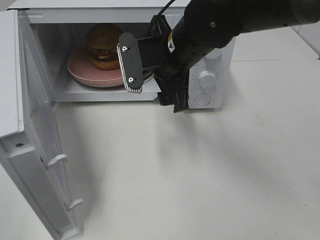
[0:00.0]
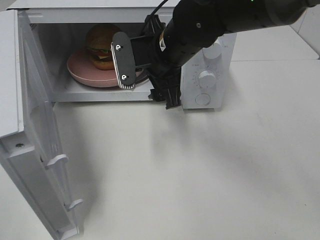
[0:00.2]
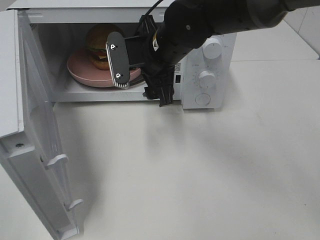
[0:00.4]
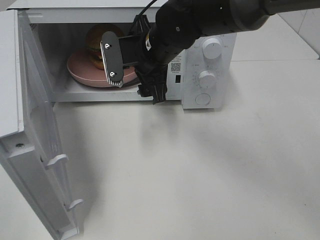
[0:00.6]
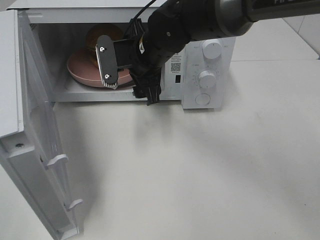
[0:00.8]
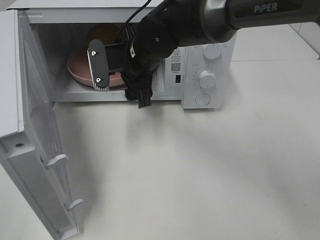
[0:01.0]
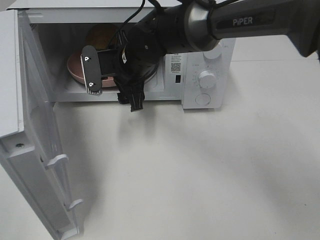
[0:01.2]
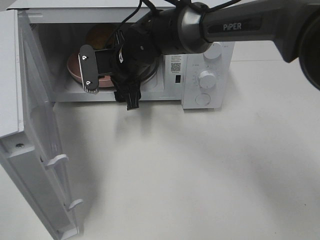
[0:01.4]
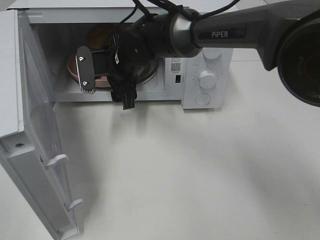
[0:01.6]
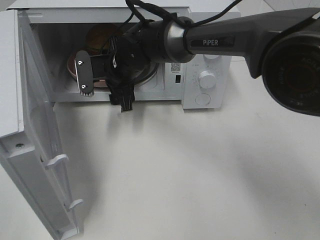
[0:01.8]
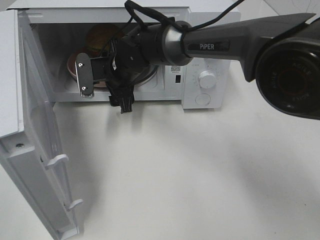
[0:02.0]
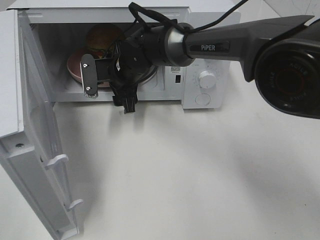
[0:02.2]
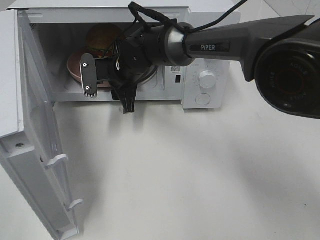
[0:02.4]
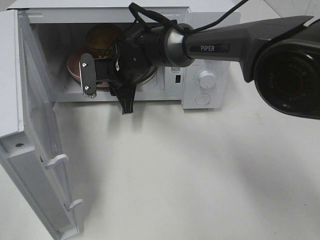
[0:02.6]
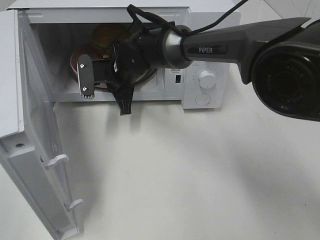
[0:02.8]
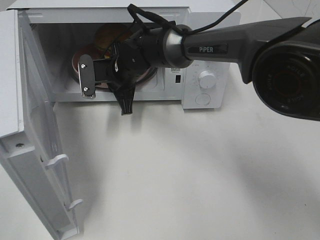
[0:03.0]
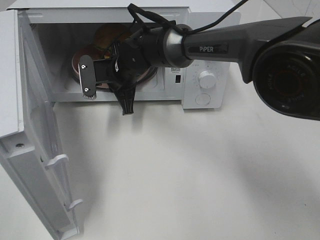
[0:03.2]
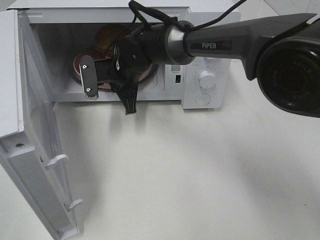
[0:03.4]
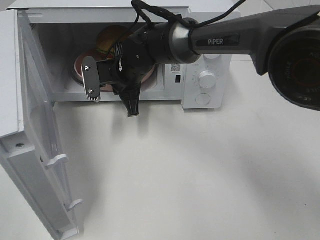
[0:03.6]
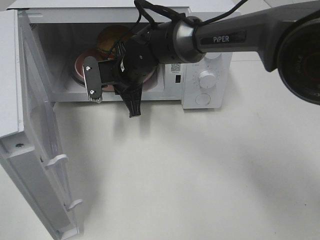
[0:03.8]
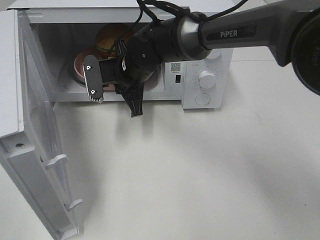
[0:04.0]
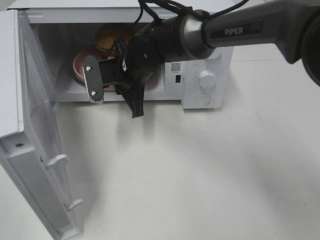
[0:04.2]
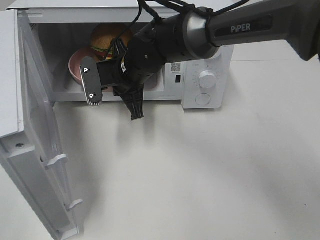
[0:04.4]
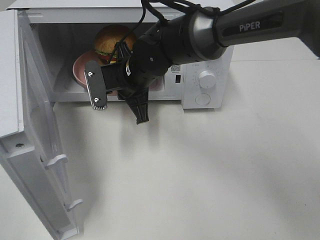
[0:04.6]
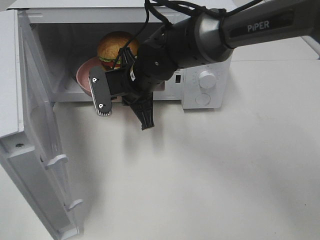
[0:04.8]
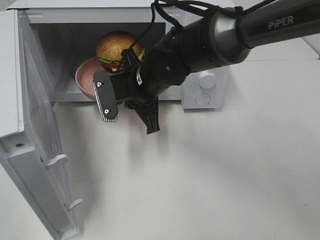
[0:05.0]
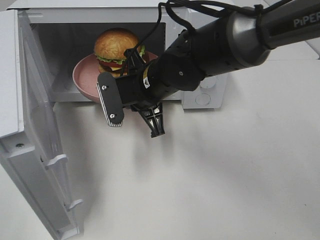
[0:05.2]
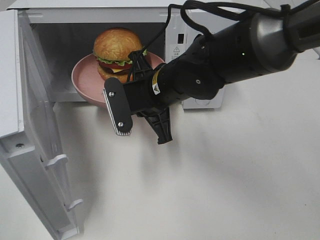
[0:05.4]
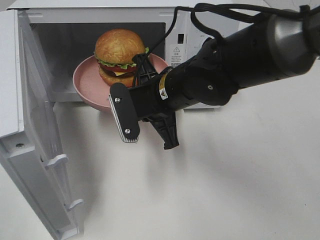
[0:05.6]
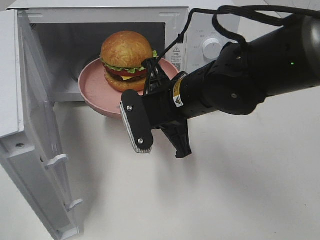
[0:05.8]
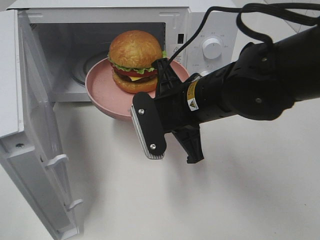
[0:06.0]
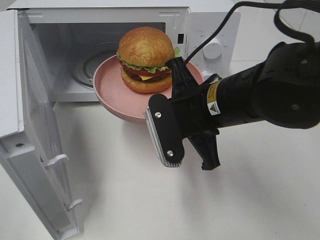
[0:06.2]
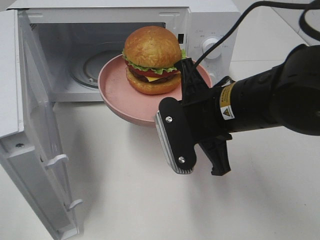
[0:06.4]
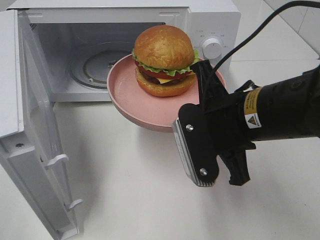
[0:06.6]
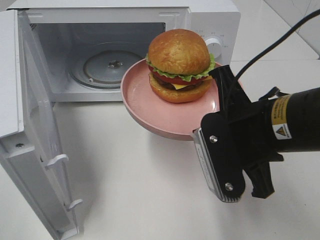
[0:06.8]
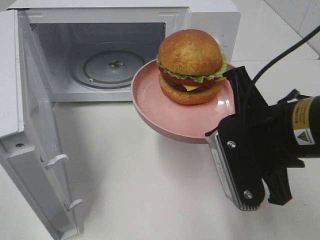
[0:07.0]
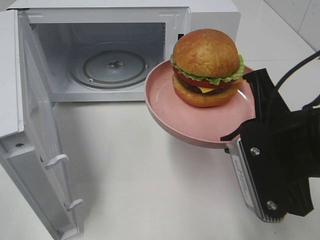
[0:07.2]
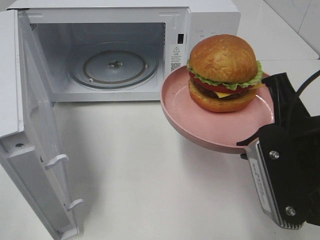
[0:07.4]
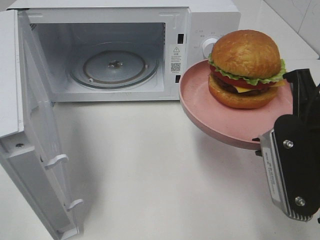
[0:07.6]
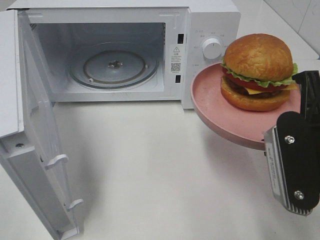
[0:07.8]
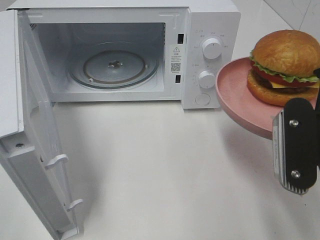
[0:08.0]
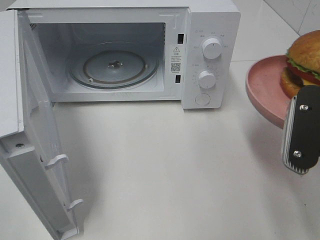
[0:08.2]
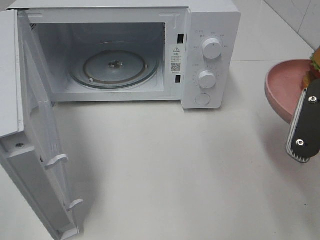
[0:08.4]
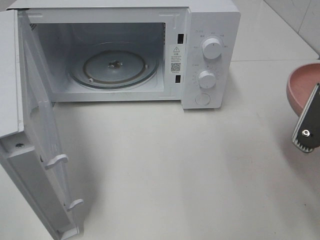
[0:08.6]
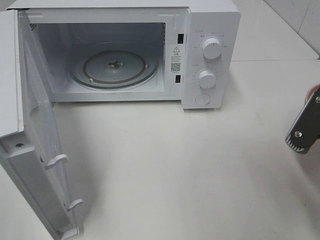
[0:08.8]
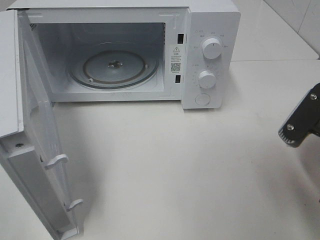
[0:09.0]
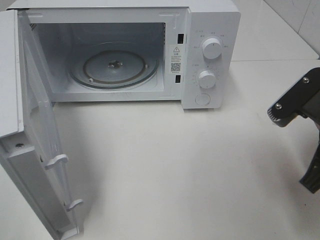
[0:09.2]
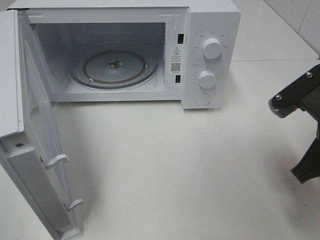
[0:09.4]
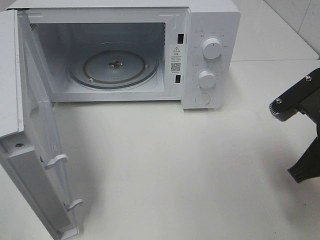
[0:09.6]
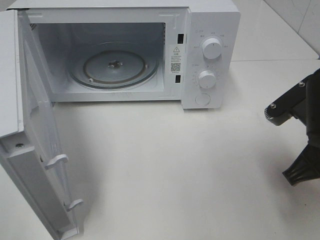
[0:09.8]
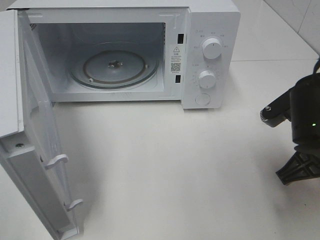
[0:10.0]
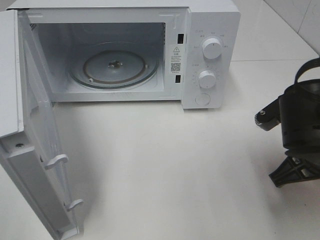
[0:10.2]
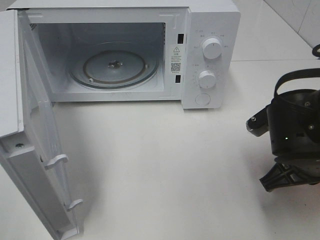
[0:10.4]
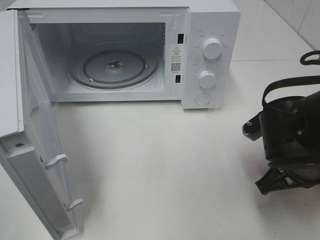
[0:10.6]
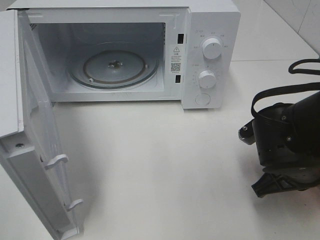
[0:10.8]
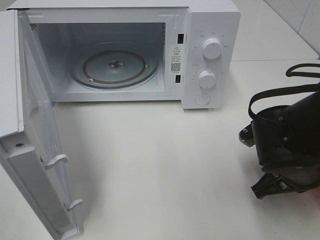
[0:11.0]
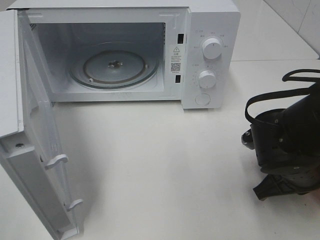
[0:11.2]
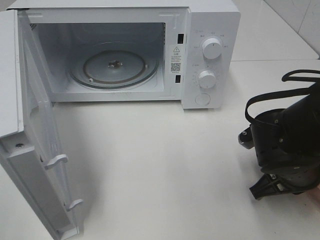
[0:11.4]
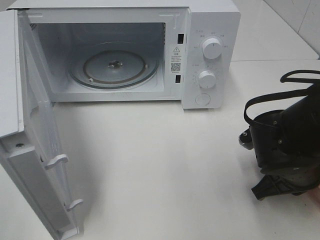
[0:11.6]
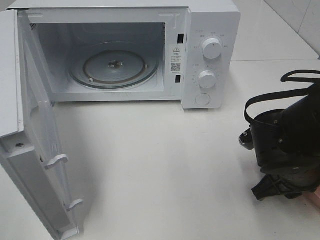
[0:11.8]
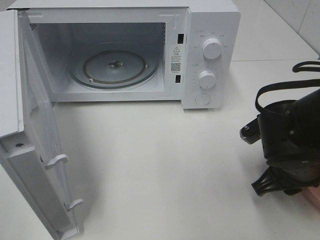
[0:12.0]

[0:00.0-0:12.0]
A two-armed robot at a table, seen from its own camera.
Task of the whole recording: Heat the burger.
Step, 0:00.0 to 0:02.6: Right hand: grab the plate with the hamburger.
0:00.0 to 0:01.6: The right gripper moves to the left, forward and downward, about 15 cm.
0:01.6 to 0:03.0: The right gripper closes up.
0:03.0 to 0:04.4: The right gripper moves some 5 cm.
0:04.4 to 0:06.0: The right gripper moves backward and to the right, some 15 cm.
0:06.0 to 0:07.6: The right gripper heads to the right, backward and upward, covering approximately 20 cm.
0:09.0 to 0:10.4: The right gripper goes some 5 cm downward.
0:10.4 to 0:12.0: The right gripper opens up.

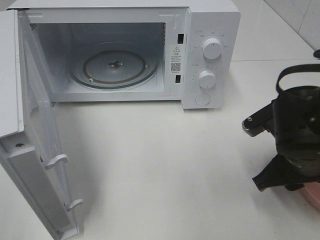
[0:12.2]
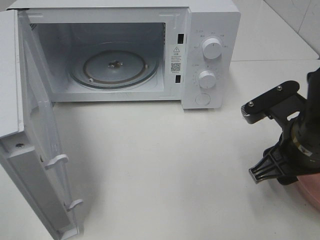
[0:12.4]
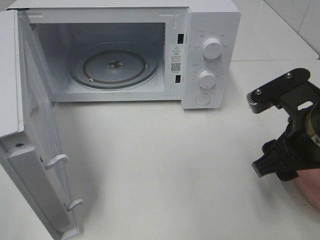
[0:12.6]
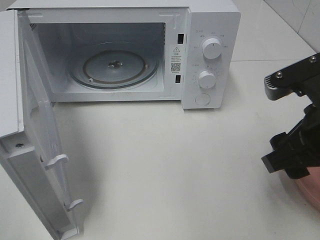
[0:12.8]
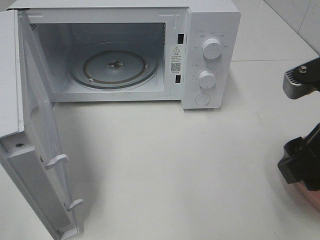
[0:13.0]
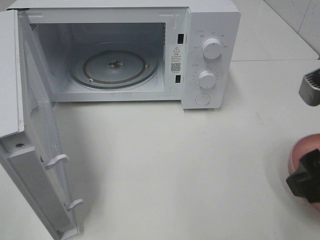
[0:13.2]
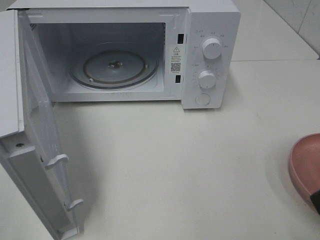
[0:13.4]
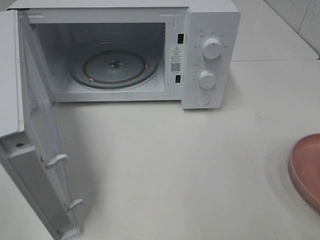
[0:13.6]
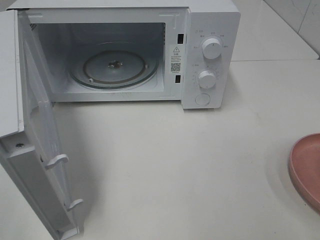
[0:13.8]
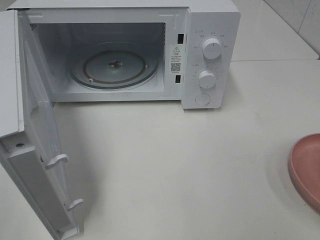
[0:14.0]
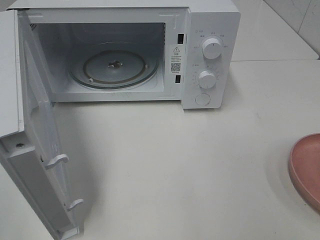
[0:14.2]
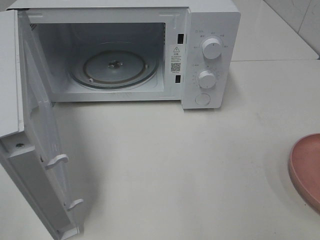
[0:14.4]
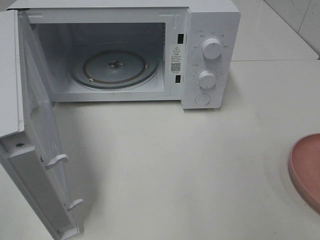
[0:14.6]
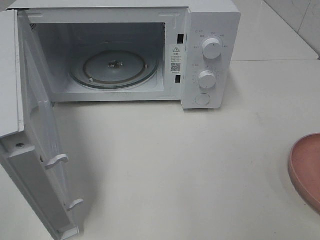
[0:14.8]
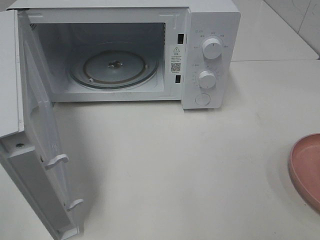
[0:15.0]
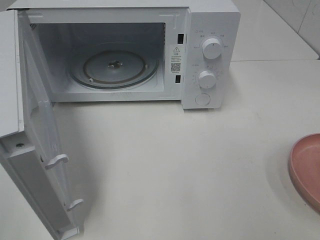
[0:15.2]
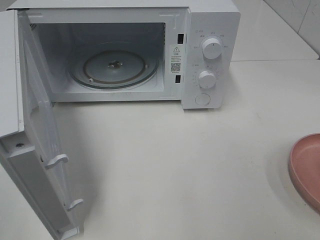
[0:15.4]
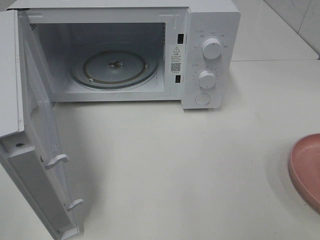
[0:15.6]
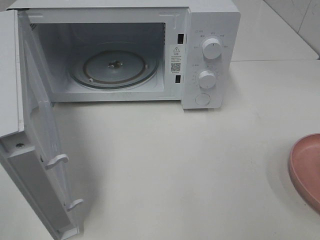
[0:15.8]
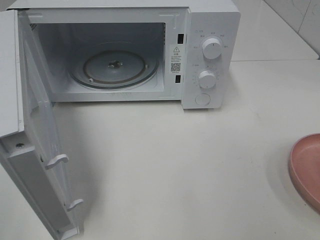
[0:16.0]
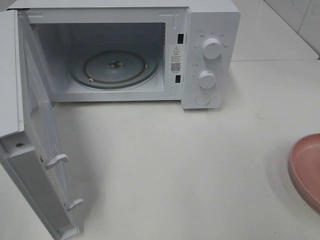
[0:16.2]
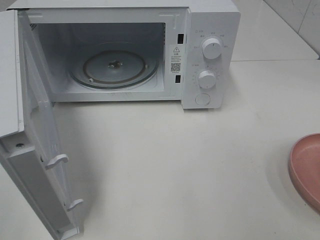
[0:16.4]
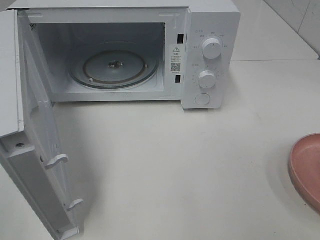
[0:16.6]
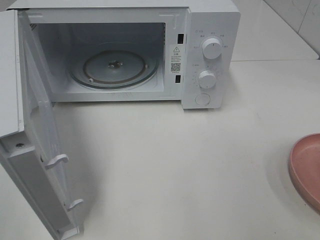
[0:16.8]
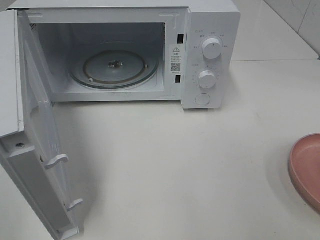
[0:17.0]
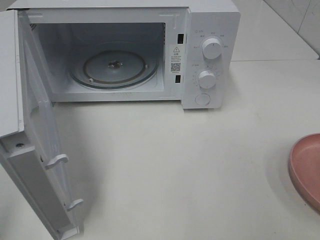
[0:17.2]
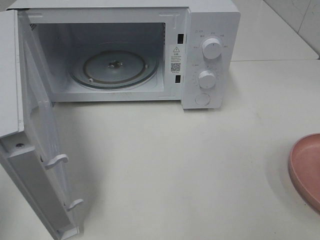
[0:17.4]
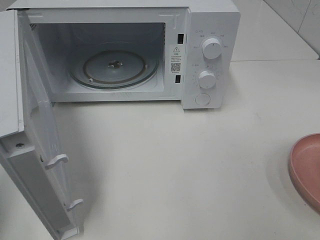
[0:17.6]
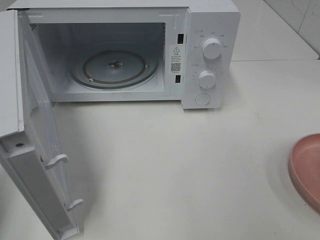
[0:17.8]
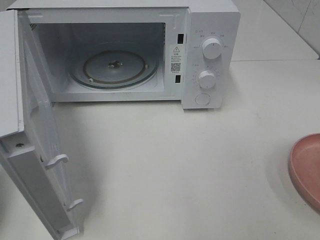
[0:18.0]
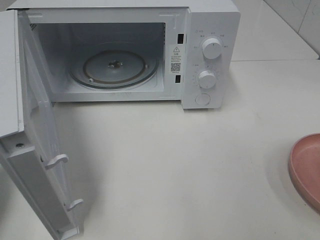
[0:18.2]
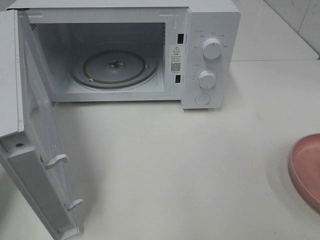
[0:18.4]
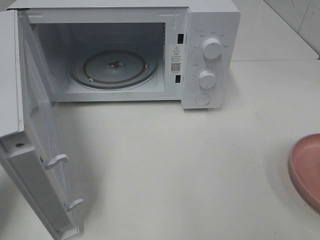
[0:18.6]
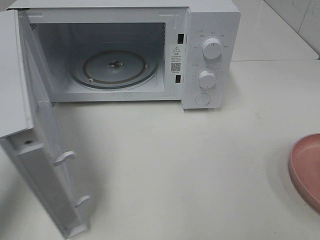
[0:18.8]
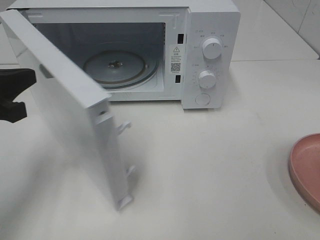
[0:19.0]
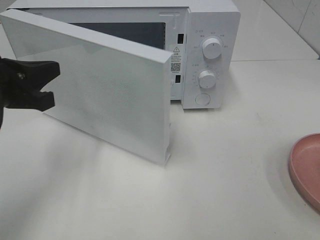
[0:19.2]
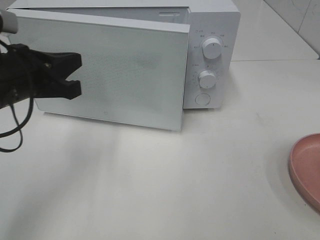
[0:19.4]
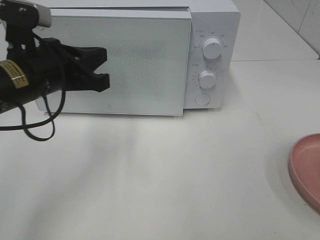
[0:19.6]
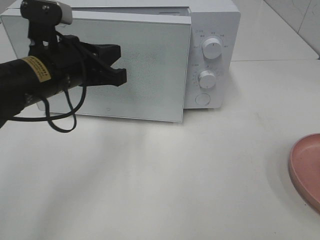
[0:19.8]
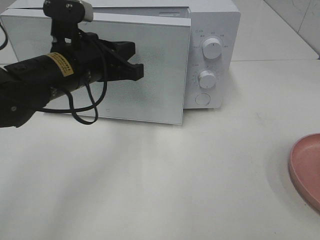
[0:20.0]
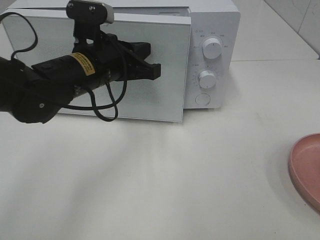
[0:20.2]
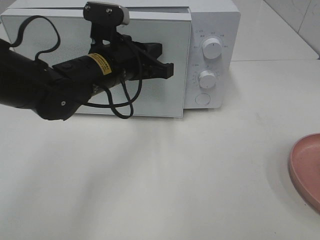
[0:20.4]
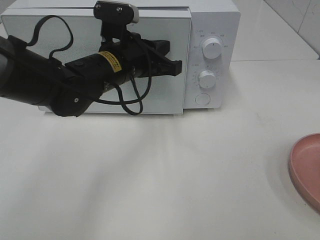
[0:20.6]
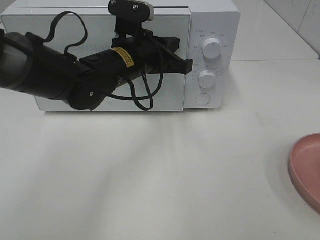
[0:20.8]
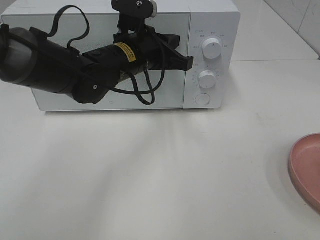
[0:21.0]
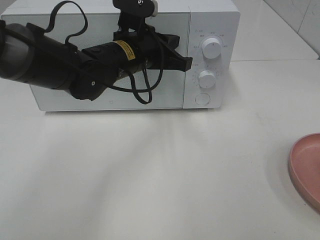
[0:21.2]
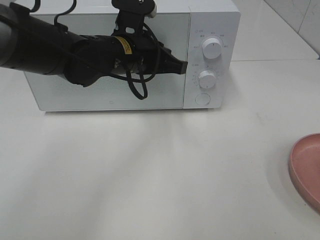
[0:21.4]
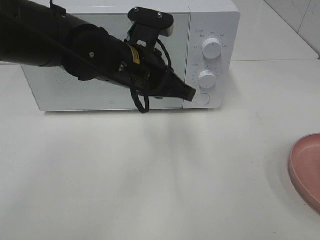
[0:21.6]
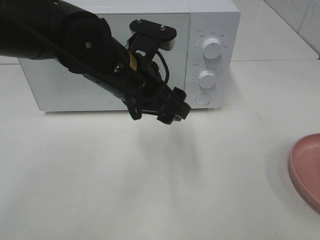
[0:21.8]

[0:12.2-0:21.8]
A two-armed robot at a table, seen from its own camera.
Task of the whole recording: Heat the burger.
0:12.2 to 0:13.8: The right gripper shifts roughly 20 cm backward, upward and to the right.
0:17.0 to 0:18.6: The left gripper shifts approximately 20 cm forward and downward, and closes up.
0:18.6 to 0:20.2: The left gripper goes about 25 cm to the right and forward.
0:20.2 to 0:21.8: The left gripper moves roughly 5 cm, and opens up.

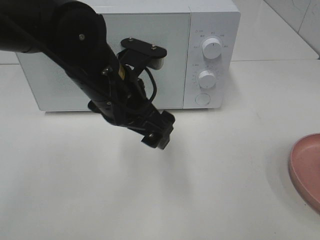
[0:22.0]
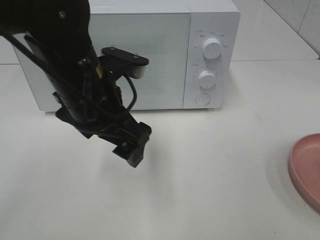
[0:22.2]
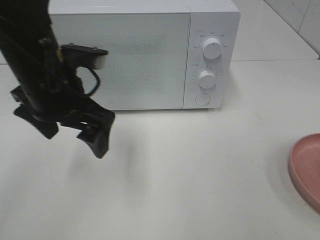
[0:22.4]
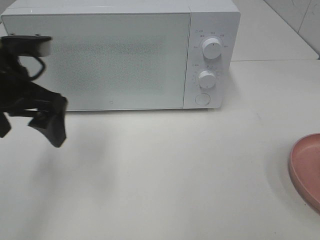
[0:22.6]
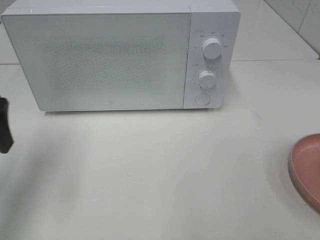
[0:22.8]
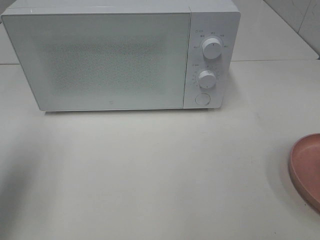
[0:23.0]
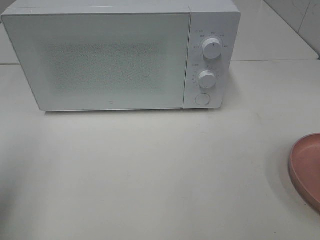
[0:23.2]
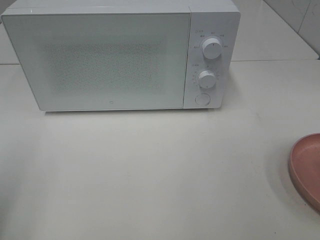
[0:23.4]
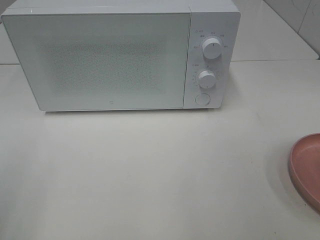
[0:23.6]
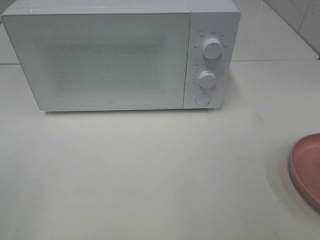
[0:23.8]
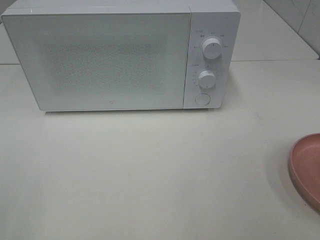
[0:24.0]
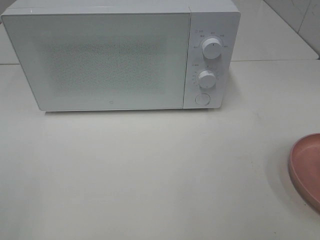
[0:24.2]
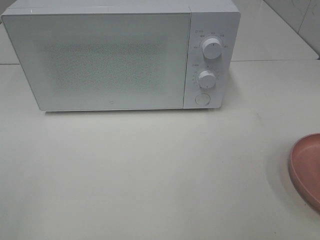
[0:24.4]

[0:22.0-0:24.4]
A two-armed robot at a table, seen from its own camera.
Task of the whole recording: Heat the burger.
0:22.0 to 0:23.2: The left gripper is displaced to the left and backward by about 30 cm.
0:23.2 to 0:24.4: The left gripper goes some 15 cm backward.
